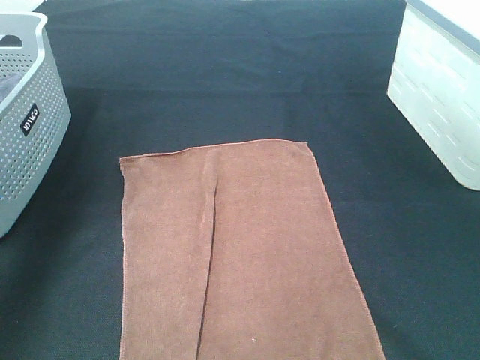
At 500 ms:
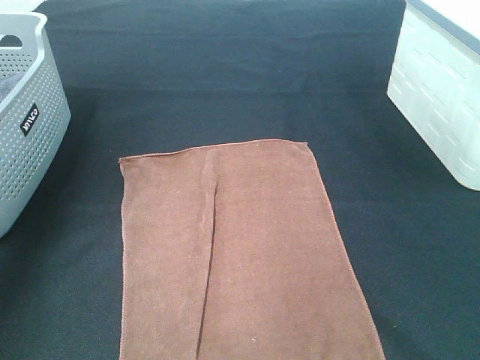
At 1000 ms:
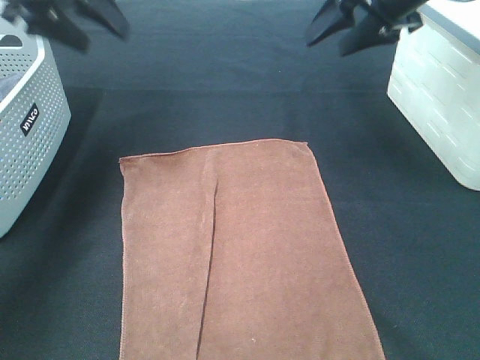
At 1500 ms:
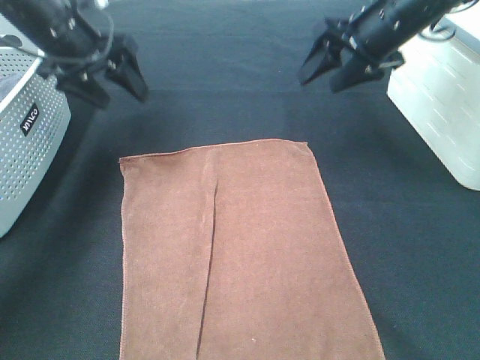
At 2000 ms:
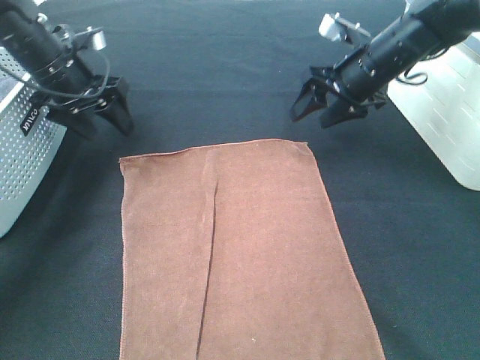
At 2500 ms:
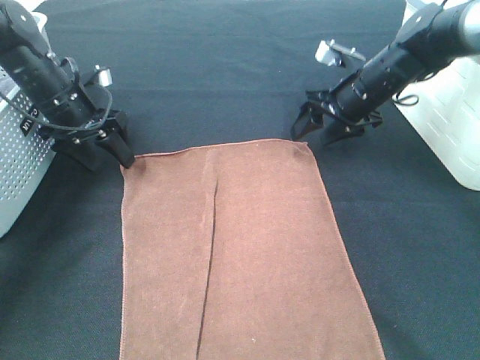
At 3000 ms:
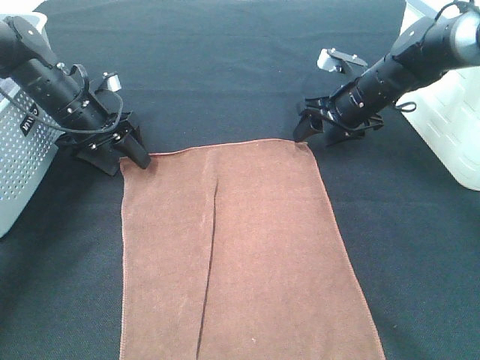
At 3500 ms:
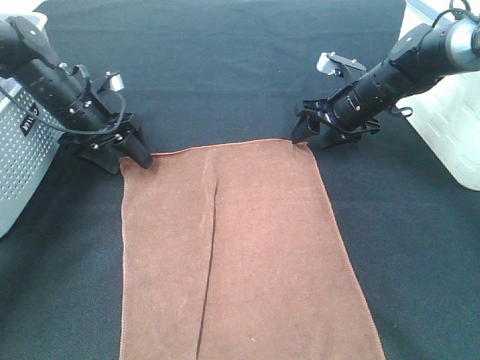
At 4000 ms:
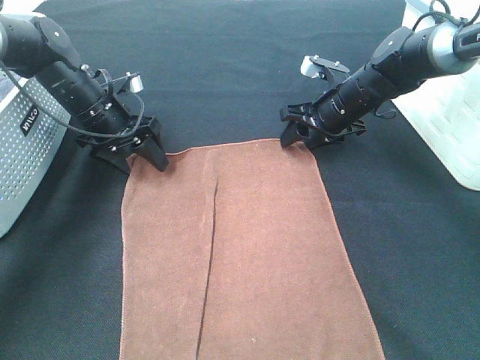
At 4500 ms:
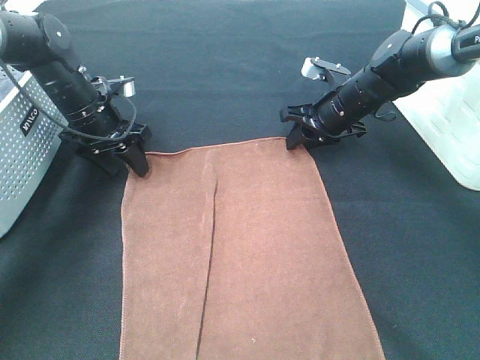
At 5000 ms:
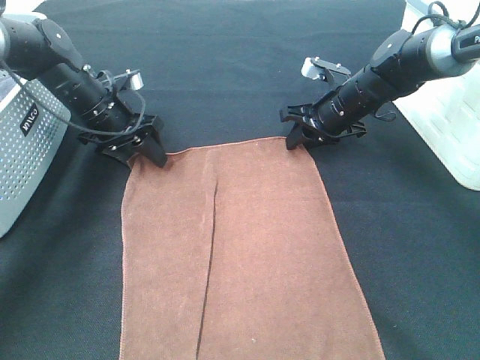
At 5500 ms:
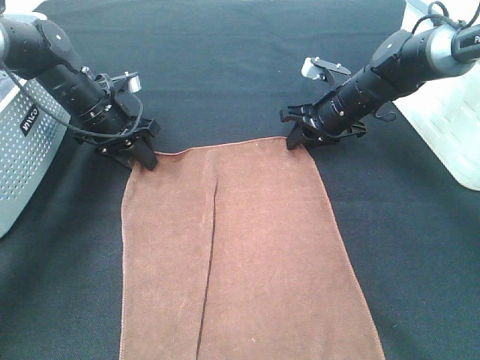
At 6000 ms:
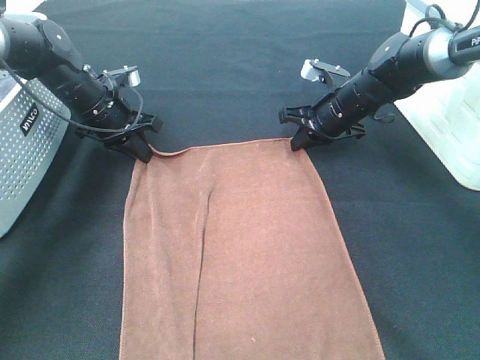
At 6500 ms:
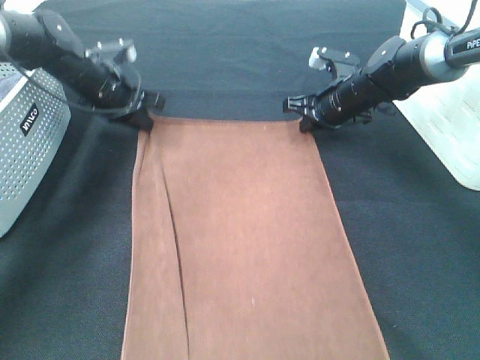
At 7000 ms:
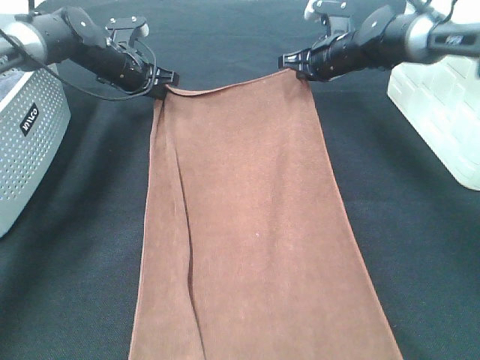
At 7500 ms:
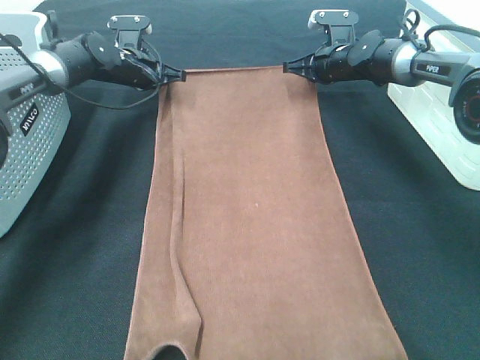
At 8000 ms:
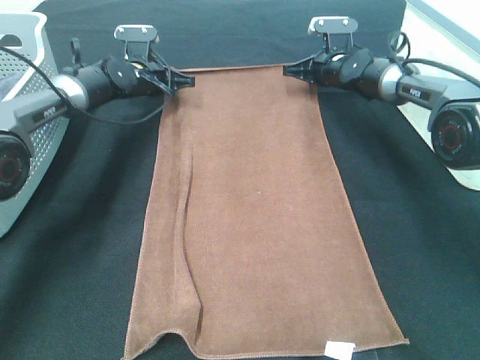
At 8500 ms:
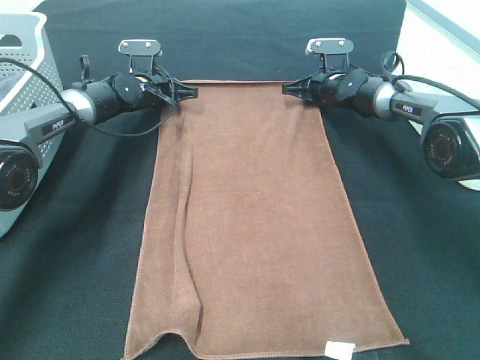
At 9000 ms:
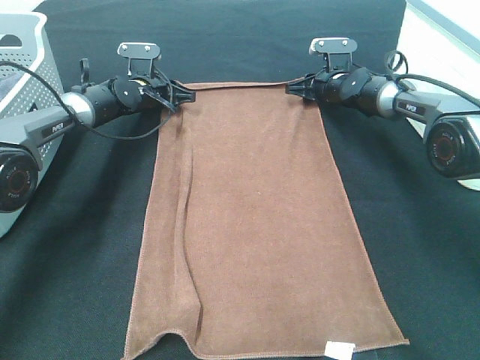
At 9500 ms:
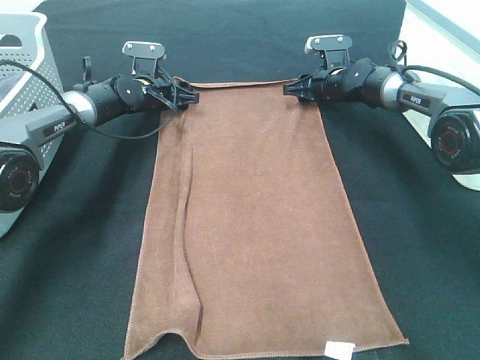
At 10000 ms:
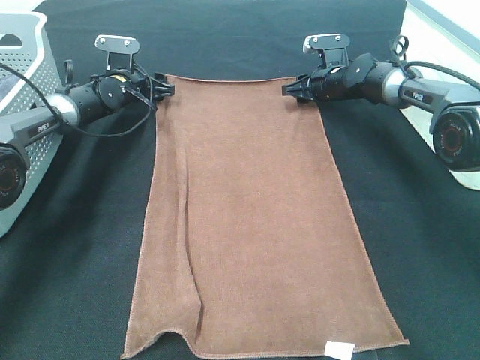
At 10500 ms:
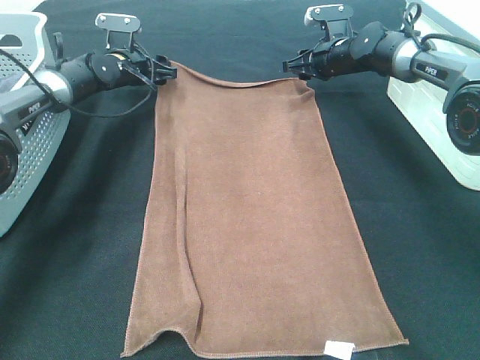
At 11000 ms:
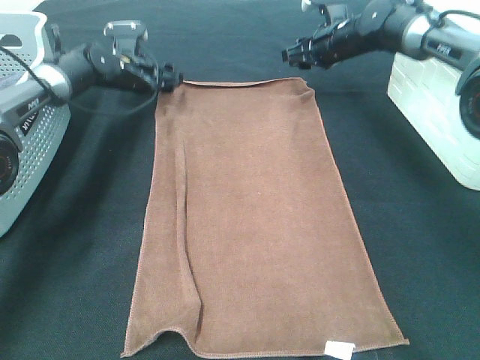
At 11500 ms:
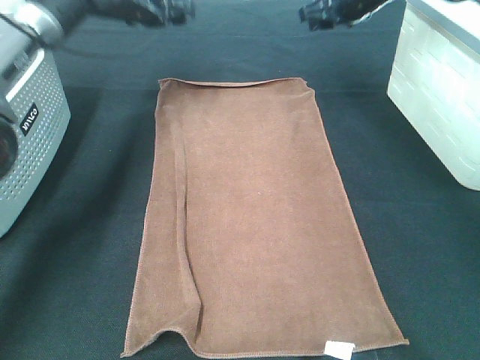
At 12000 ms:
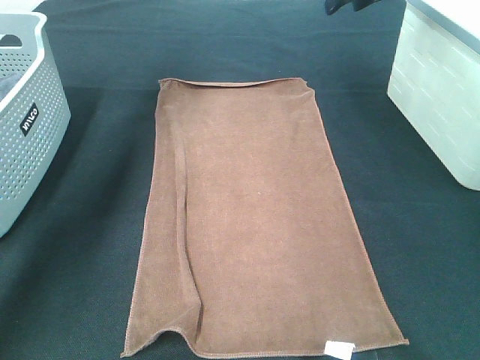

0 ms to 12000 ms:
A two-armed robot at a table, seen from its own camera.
Task of the whole recording: Remove the towel and place it.
Step, 0 ms to 2500 ms: Right hand:adjust the brown towel.
Step, 0 ms to 3000 ms: Left hand:adjust the brown towel.
0 ms to 2000 ms: Both grippers travel together downward and forward, roughly 30 cm.
2000 ms to 4000 ms: The two grippers go approximately 5 cm downward.
4000 ms to 6000 ms: The left gripper closes, while the right gripper closes its fingers.
6000 ms to 8000 ms: The grippers both shift forward by some 10 cm.
8000 ms to 10000 ms: The right gripper opens up. The left gripper opens its fingers.
10000 ms to 12000 ms: Both grippers travel together upward, about 25 cm.

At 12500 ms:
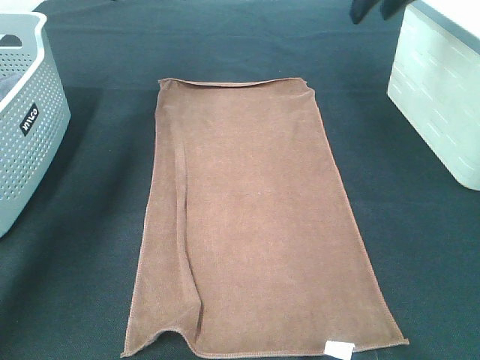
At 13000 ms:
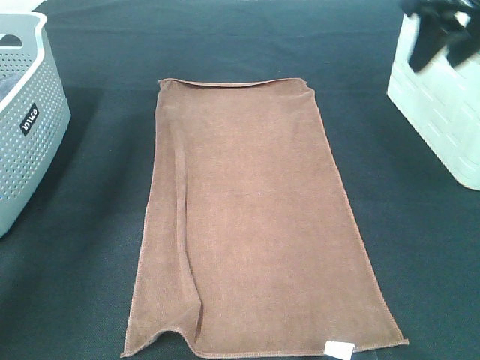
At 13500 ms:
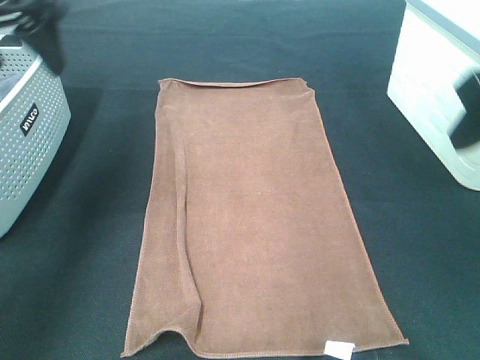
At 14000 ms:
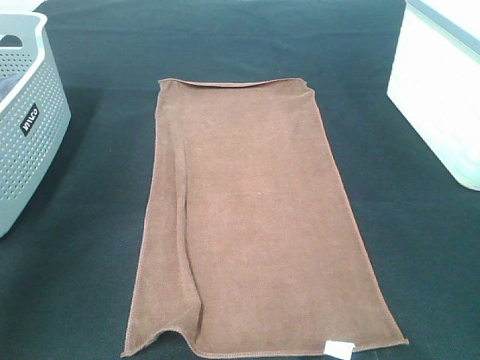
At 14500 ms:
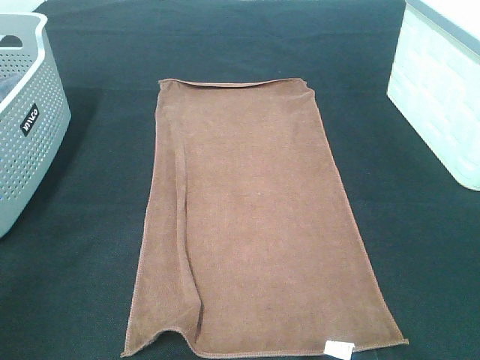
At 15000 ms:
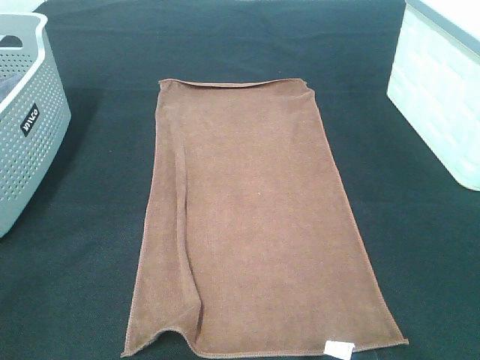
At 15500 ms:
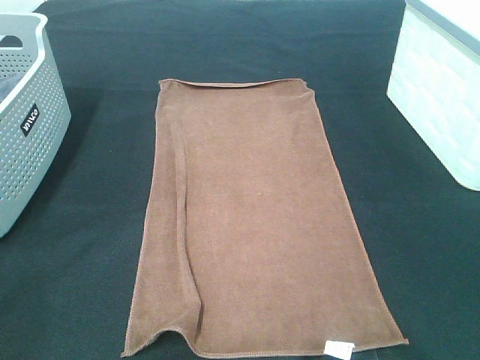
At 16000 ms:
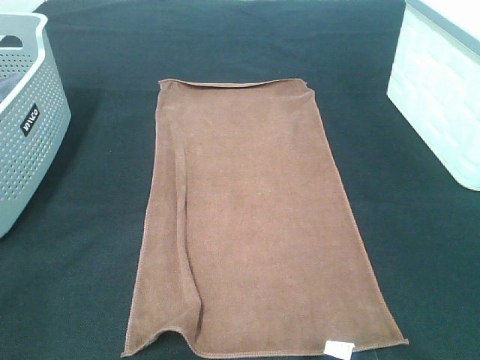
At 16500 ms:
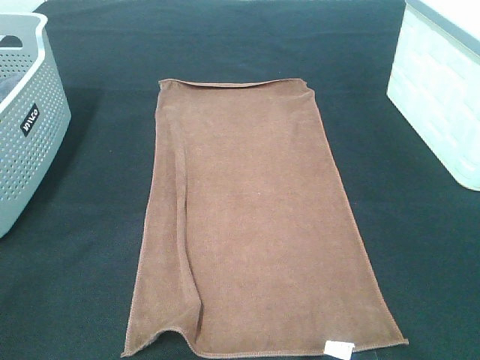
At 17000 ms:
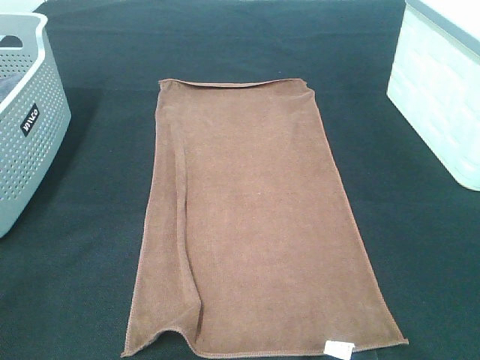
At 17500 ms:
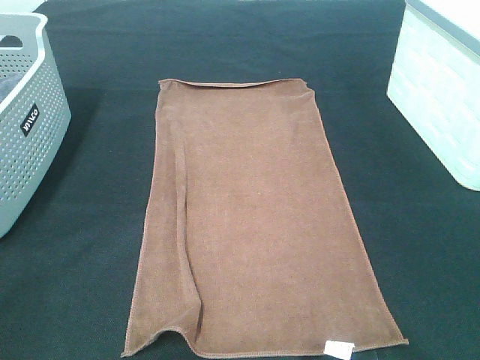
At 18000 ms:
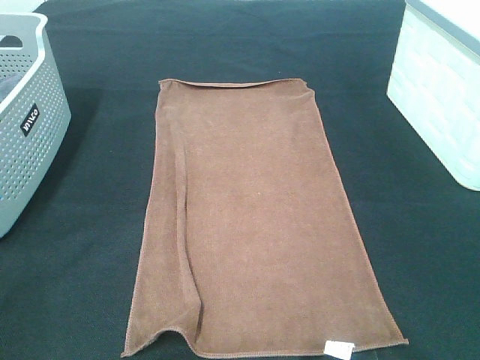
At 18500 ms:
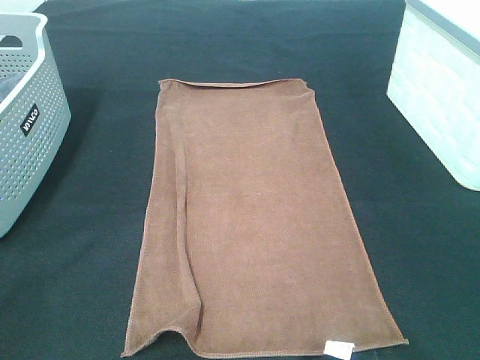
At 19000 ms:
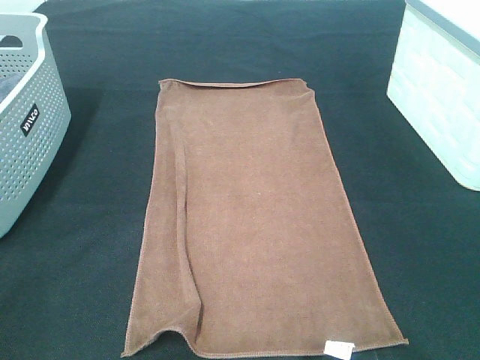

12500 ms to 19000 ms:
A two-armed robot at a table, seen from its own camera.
Task of the whole recording: Remove the towel and place it.
12500 ms to 14500 ms: The two grippers go about 40 cm backward.
17000 ms to 19000 ms: Neither gripper changes place.

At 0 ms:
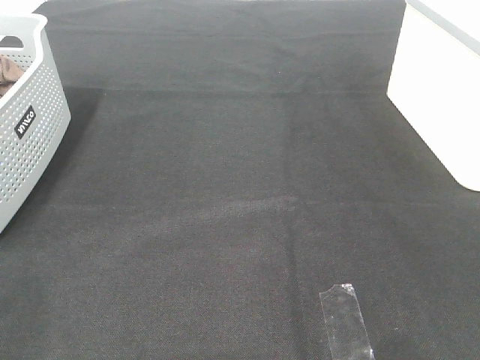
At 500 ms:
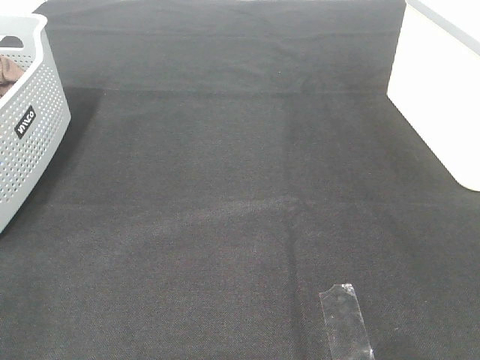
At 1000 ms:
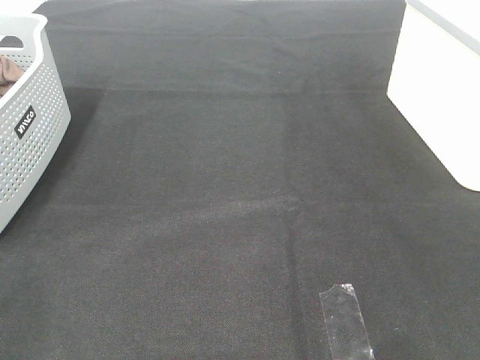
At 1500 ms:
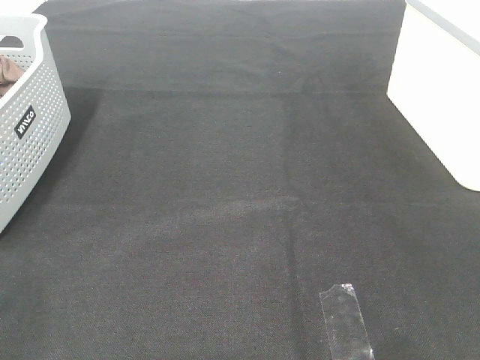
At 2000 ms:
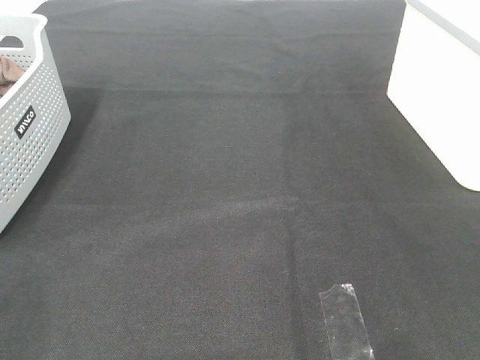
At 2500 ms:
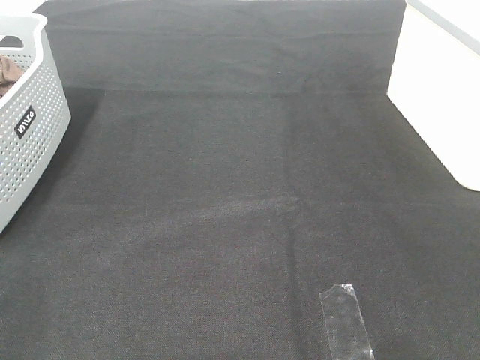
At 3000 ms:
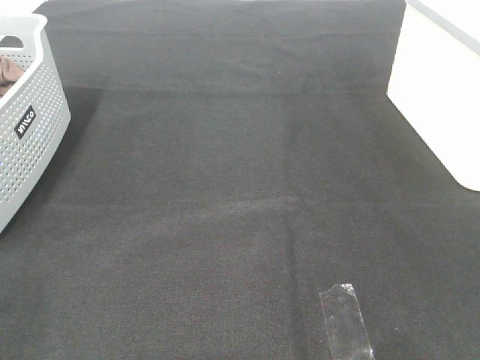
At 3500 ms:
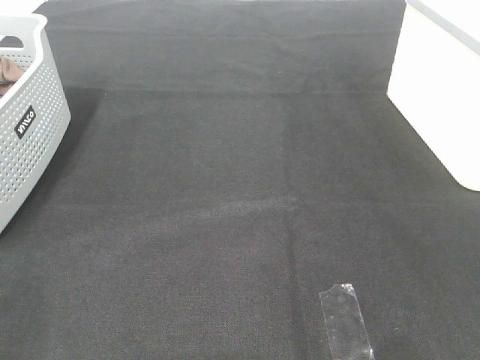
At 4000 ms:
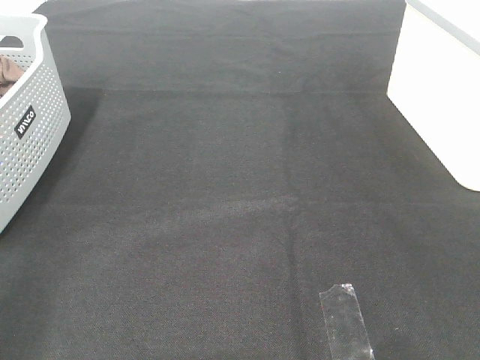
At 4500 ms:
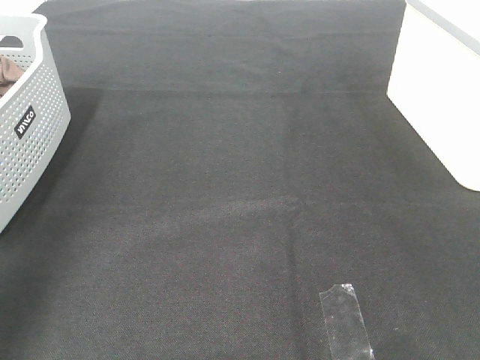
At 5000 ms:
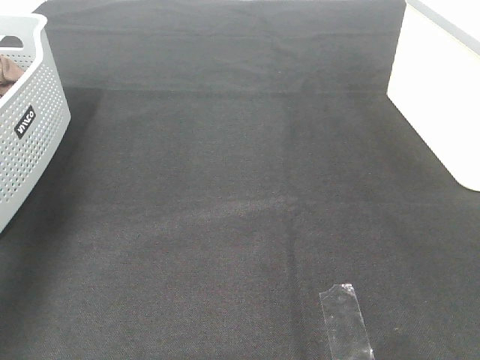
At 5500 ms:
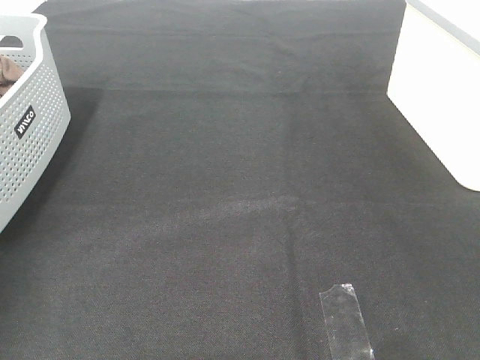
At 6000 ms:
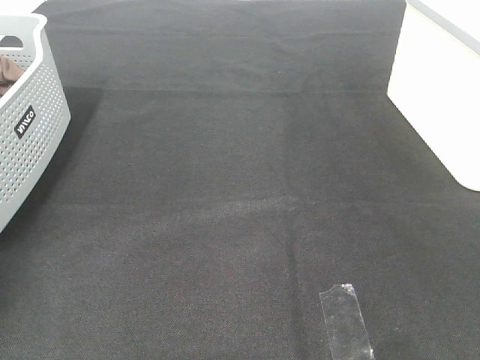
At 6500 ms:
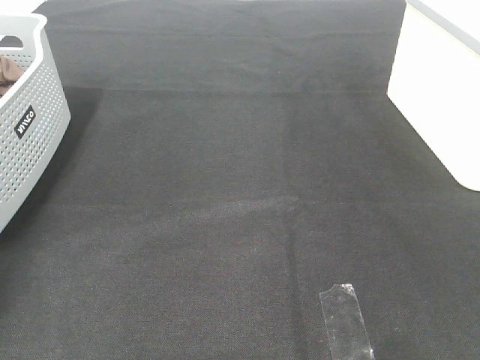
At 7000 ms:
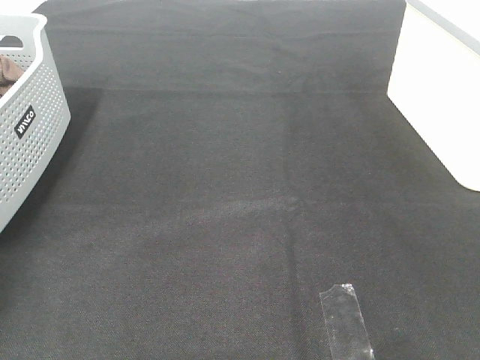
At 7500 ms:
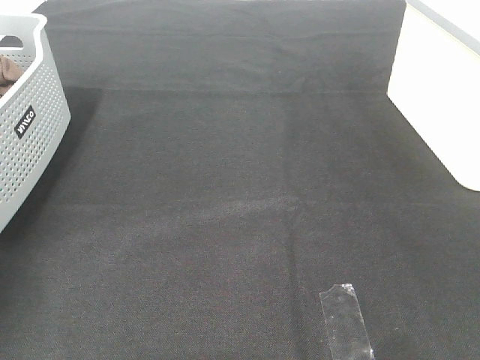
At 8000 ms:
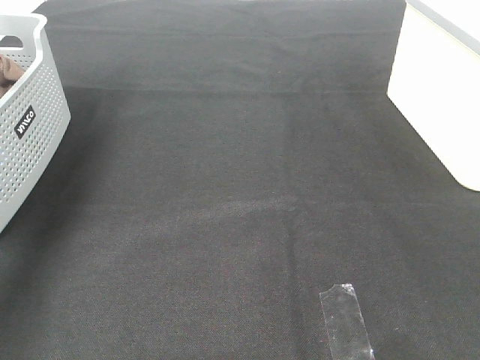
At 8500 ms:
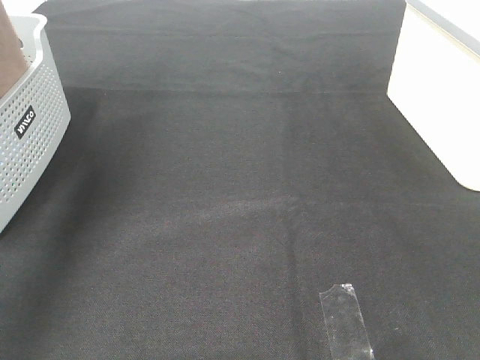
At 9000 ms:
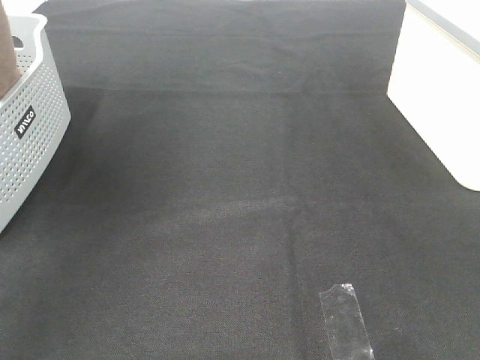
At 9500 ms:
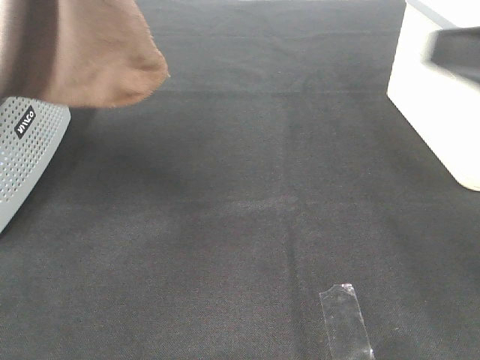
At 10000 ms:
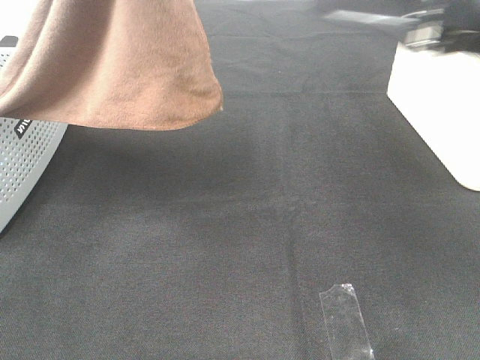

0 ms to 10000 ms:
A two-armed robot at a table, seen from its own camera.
Task of the whole recording: Remove the towel and place it.
0 ms to 2000 ms: The two grippers keep their place.
6000 ms to 8000 ms: The left gripper is displaced upward and to the right by approximately 20 cm, and closes its fingers.
8000 ms to 10000 ms: The left gripper shifts roughly 30 cm to the right, backward and upward; the right gripper is displaced forward and to the left by roughly 30 cm.
